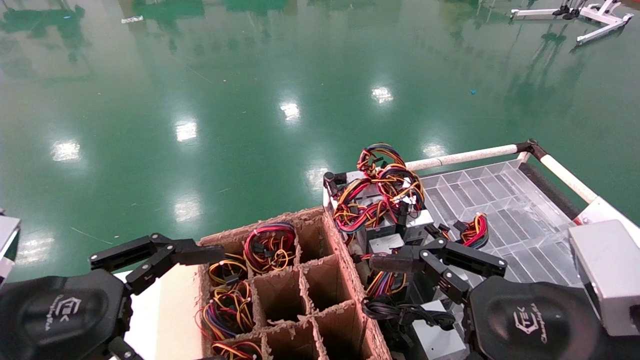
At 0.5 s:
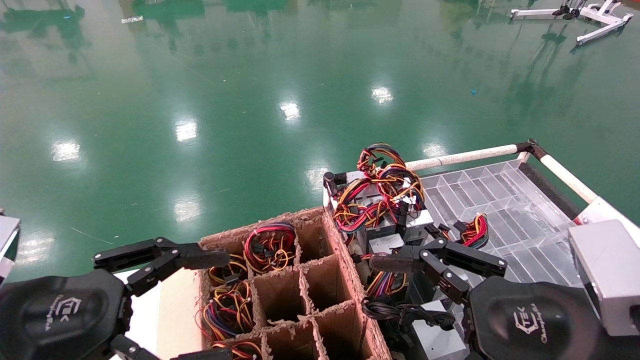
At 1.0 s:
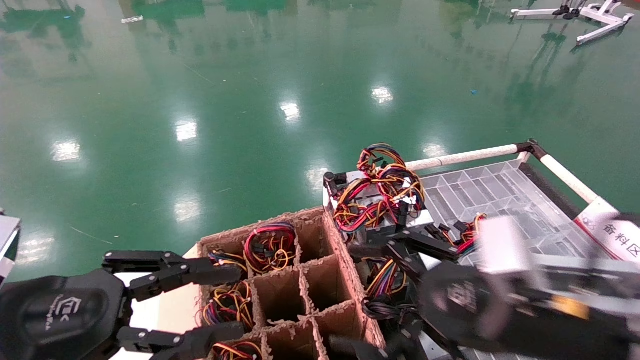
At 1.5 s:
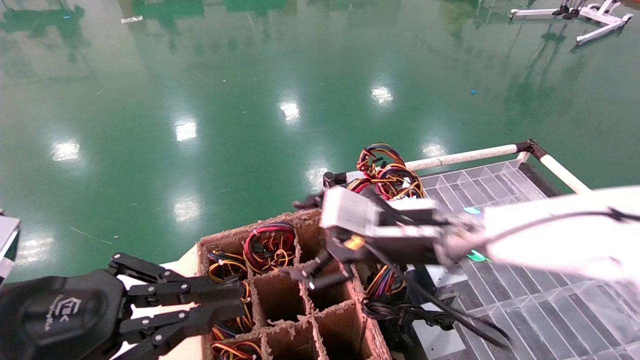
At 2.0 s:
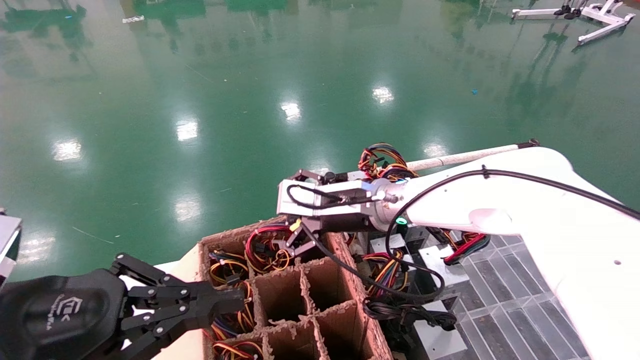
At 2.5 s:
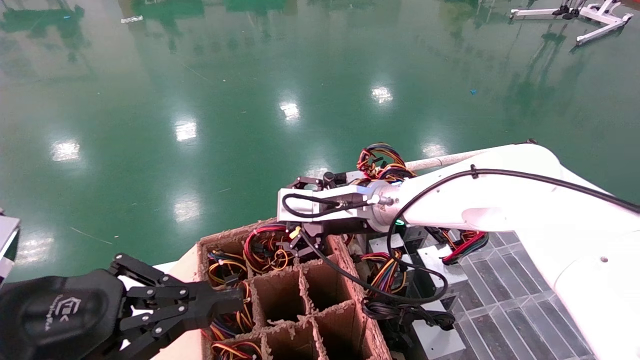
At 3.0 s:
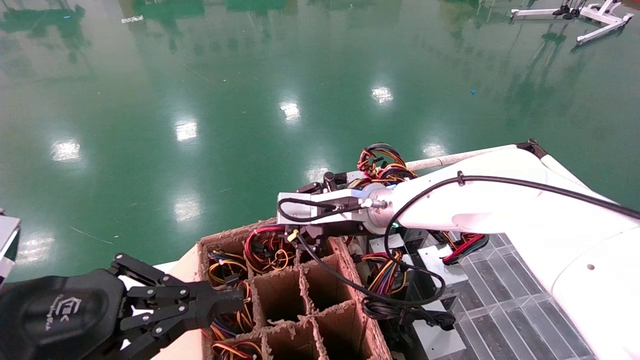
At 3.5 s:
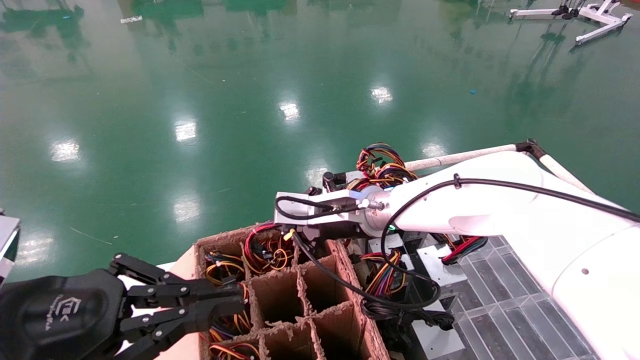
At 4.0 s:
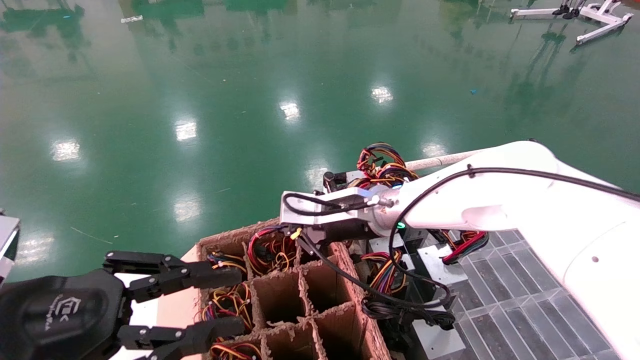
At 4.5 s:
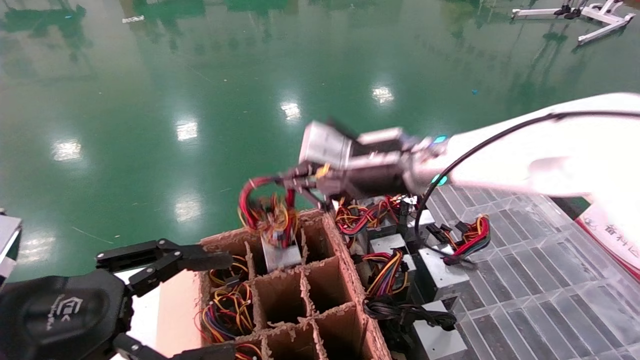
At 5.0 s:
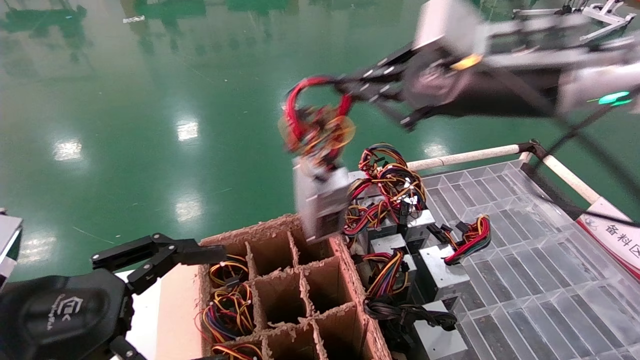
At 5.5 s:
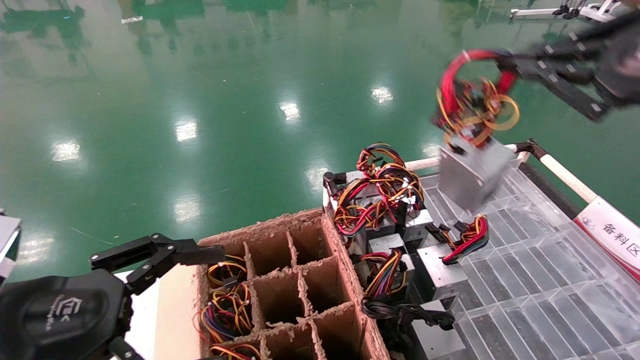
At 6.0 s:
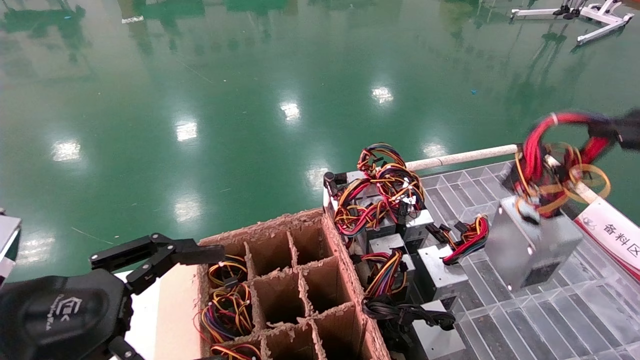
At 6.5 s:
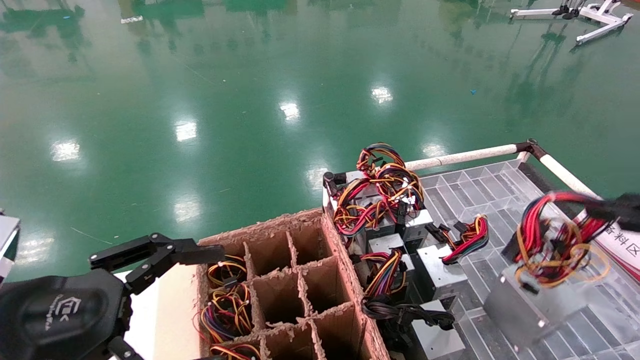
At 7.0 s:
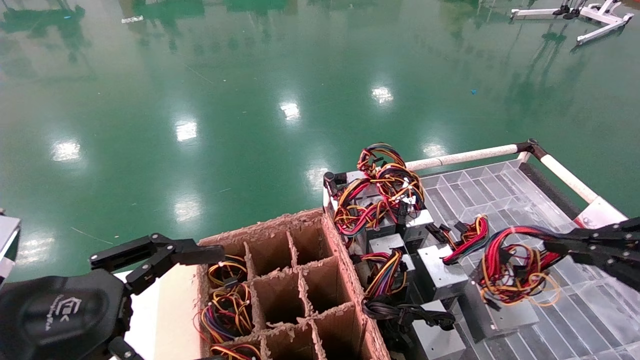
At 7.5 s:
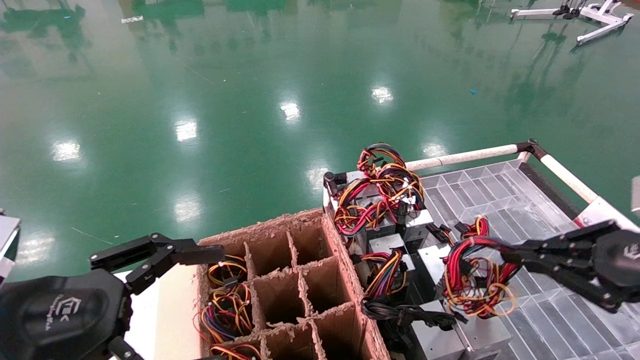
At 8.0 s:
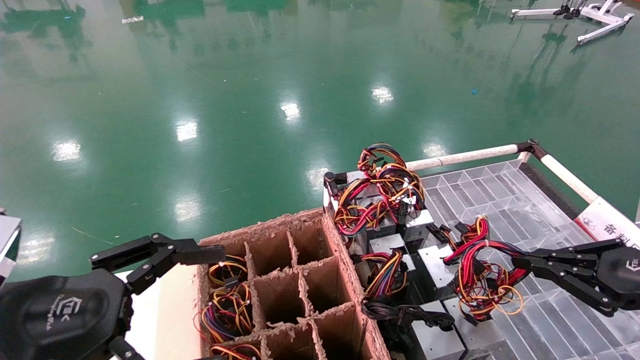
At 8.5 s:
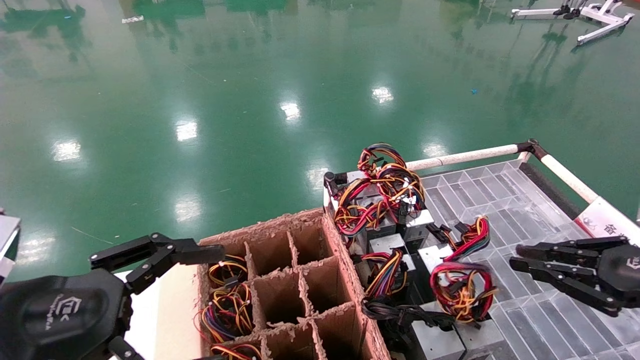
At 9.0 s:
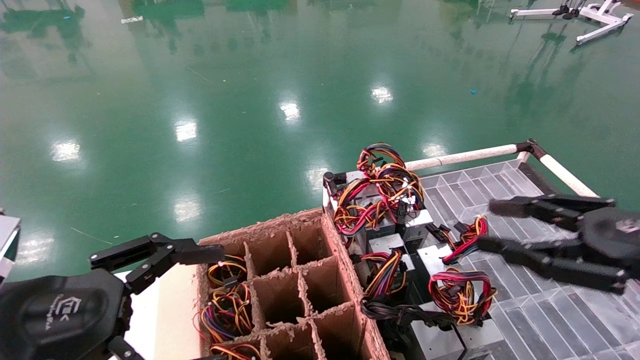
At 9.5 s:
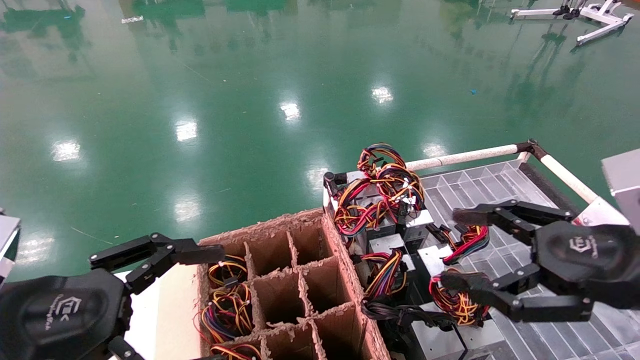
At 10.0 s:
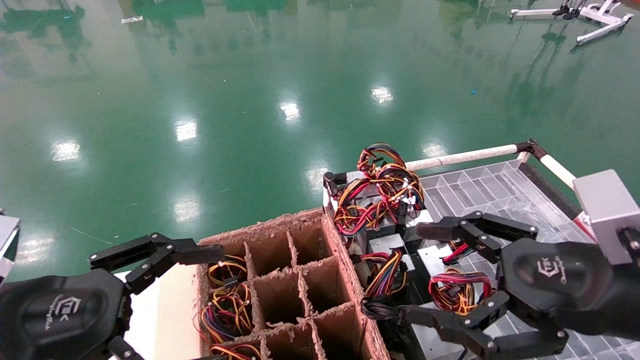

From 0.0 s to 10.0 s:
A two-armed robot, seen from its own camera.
Step, from 2.0 s to 4.0 s: Grab and lift the power supply from the large box.
Step, from 4.5 s to 8.5 s: Place the power supply on the operating table.
From 0.0 s to 2.0 s: The right gripper moves forward and to the left, roughly 30 cm. Meanwhile the left gripper closes.
From 2.0 s to 4.0 s: The right gripper closes.
From 4.0 s to 6.0 s: The right gripper travels to the right and backward by some 40 cm; the left gripper opens up.
From 6.0 s to 8.0 s: The right gripper is displaced downward and forward by some 15 cm.
From 8.0 s to 10.0 s: The right gripper is displaced to the left by roughly 15 cm, and opens up.
